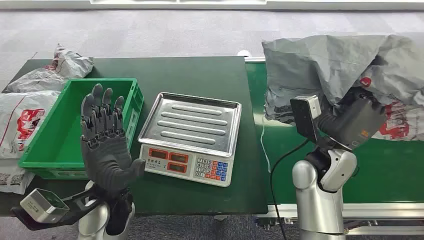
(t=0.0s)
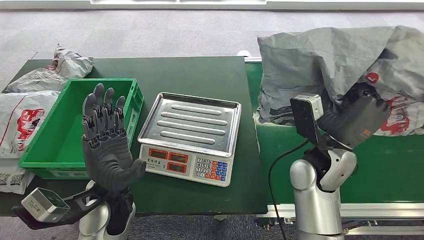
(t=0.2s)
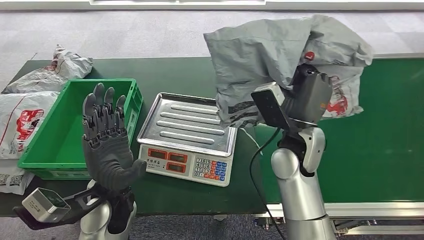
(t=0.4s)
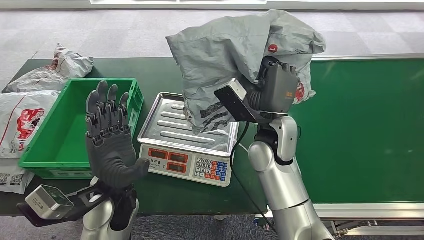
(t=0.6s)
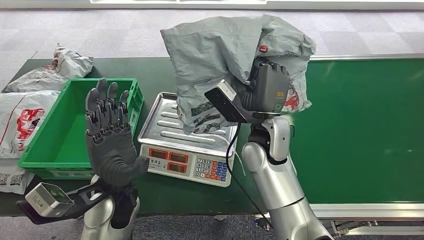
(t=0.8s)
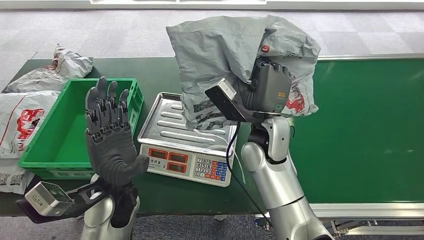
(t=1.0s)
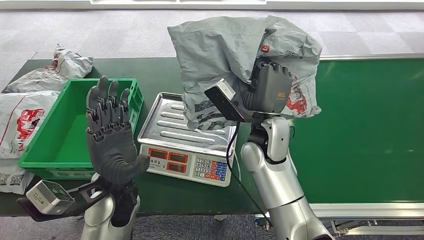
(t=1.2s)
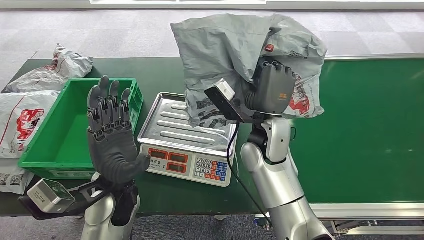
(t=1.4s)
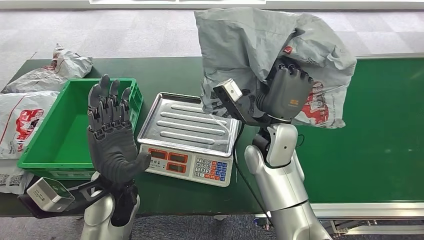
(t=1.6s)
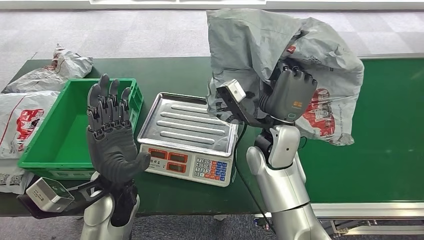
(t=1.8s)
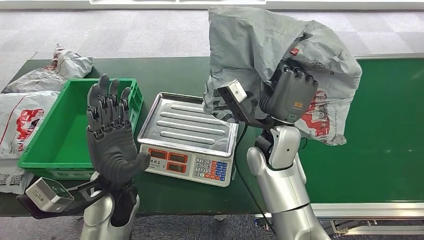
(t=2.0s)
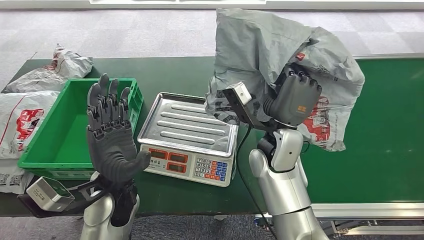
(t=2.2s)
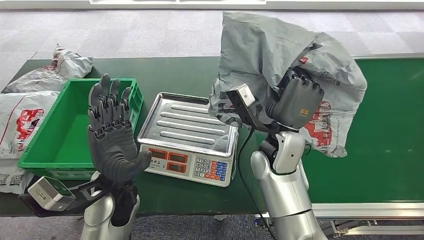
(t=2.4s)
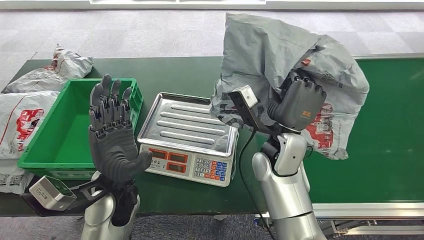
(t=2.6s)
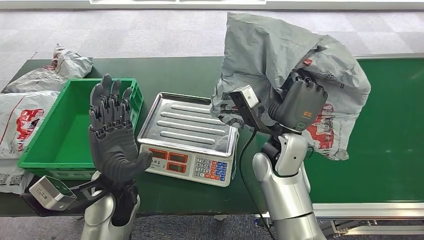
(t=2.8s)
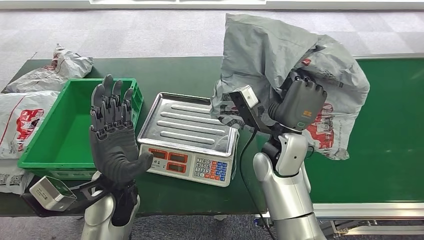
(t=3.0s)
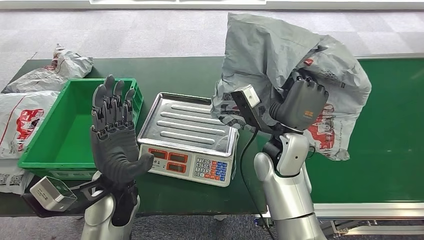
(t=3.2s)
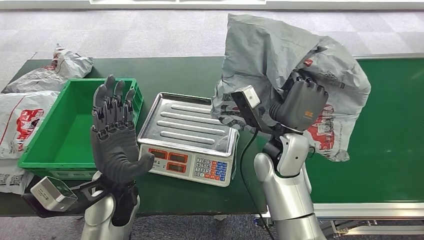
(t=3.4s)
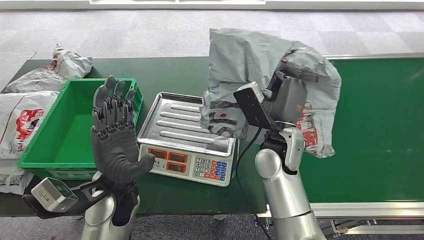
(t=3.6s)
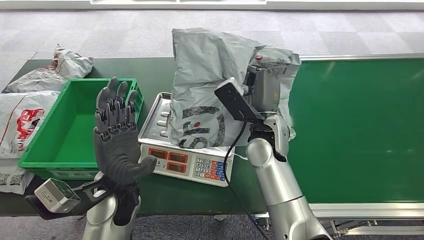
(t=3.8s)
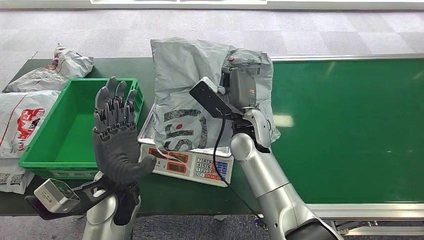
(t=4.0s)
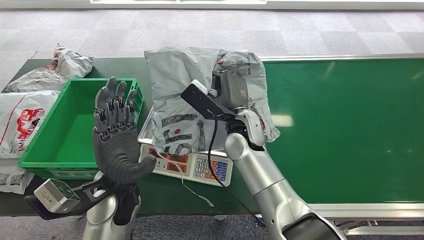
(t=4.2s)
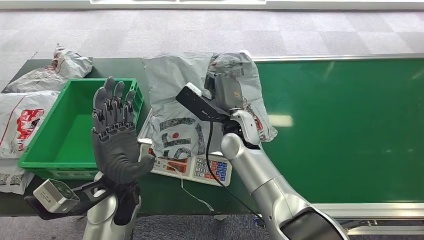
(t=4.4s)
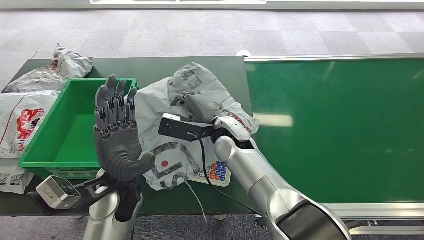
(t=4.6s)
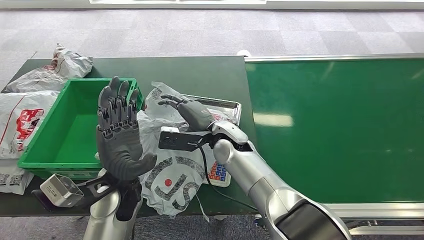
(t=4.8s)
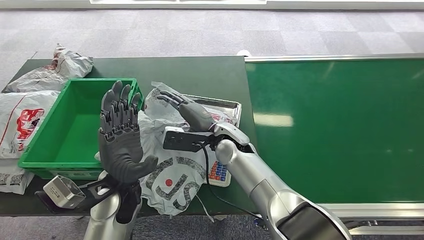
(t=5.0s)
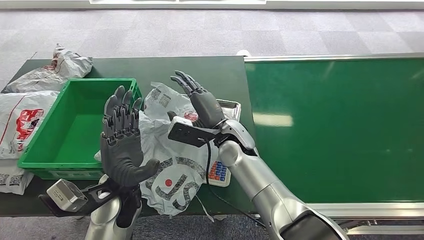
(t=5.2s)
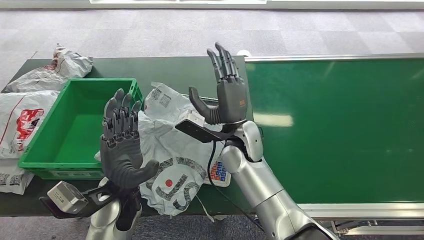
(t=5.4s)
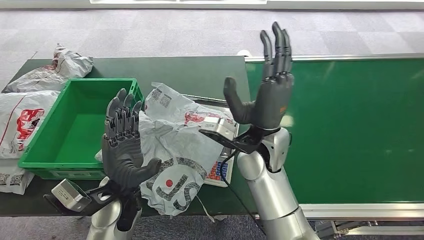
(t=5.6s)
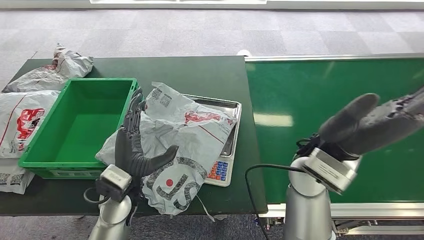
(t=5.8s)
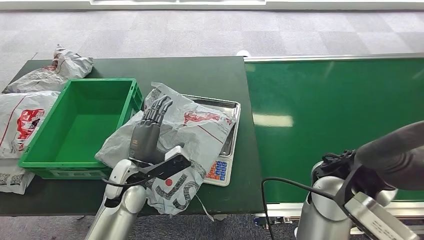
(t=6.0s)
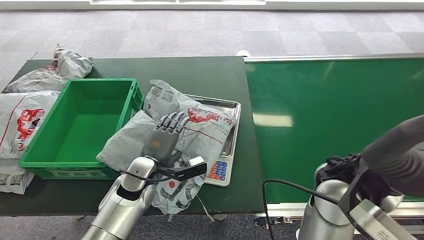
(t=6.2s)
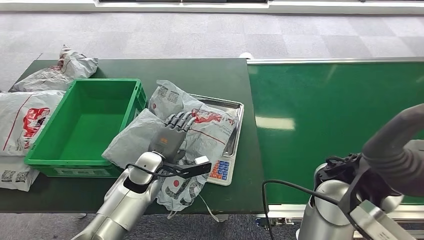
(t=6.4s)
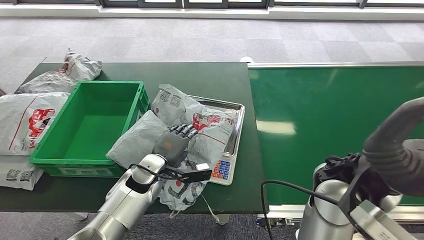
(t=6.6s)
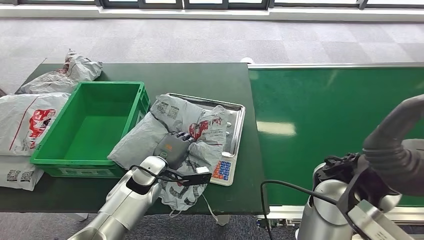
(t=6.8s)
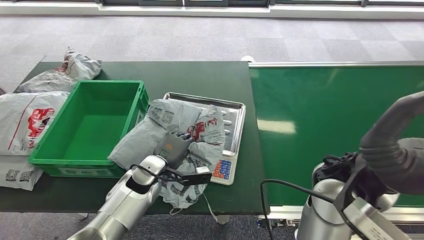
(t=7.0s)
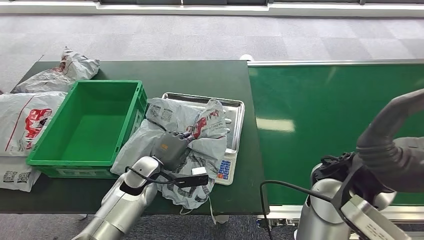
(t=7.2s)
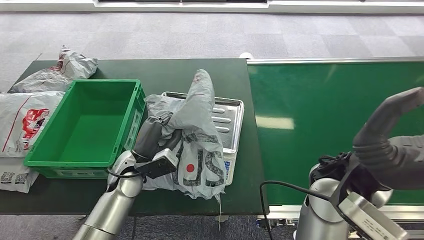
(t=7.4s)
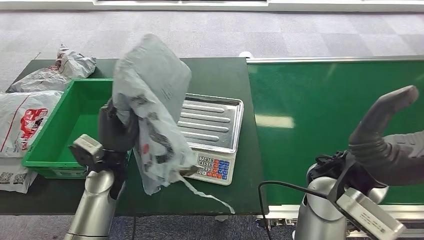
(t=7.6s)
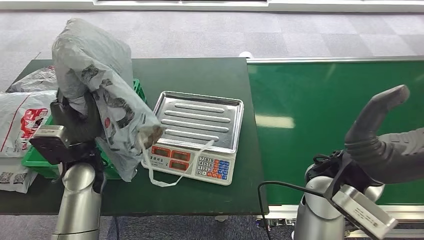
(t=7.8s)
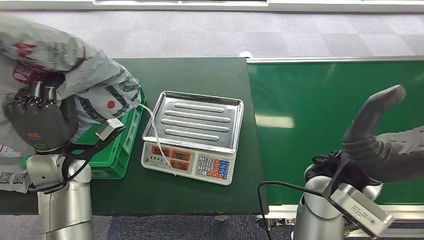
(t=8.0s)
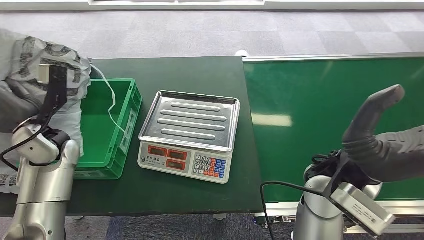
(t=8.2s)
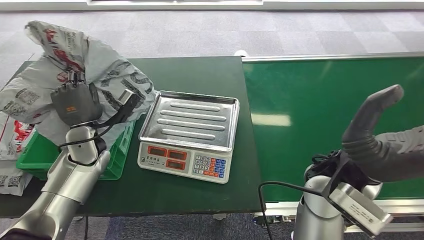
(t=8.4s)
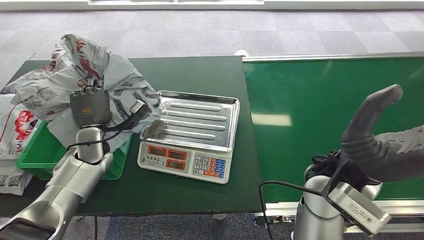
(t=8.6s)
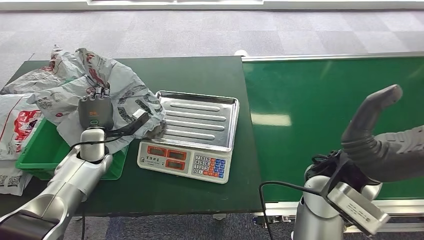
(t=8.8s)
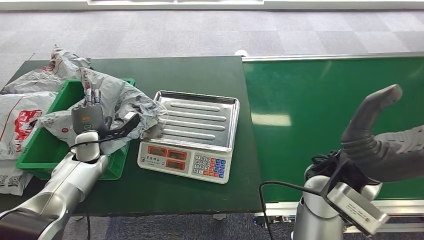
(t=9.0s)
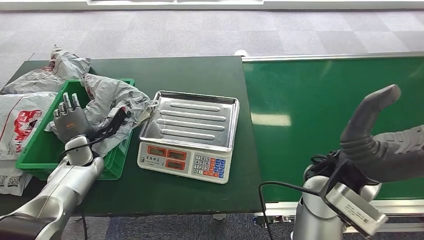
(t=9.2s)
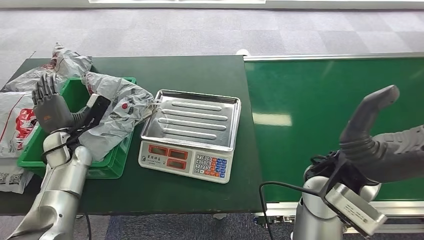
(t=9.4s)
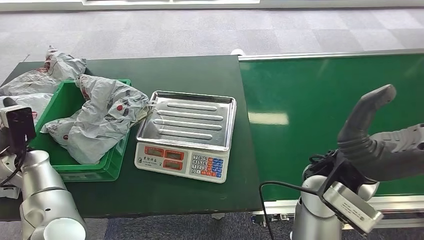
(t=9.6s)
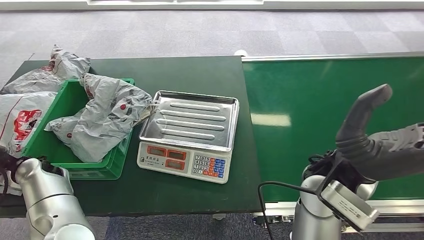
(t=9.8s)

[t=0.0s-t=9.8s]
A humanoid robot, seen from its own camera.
Task of the whole recording: Weigh the package on the weighing device and place it in the left basket.
Step, t=0.0s to t=0.2s: Pick up the package from the conveyor belt.
Step, t=0.4s to t=6.8s: Place the package onto the inbound machine.
Step, t=7.0s to t=8.0s: Pick up the package from the inbound machine.
Step, t=8.2s to t=9.8s: Place the package into the parcel locker.
